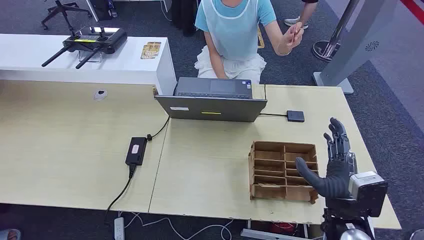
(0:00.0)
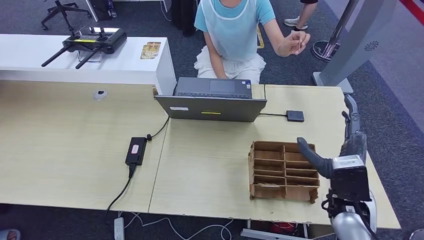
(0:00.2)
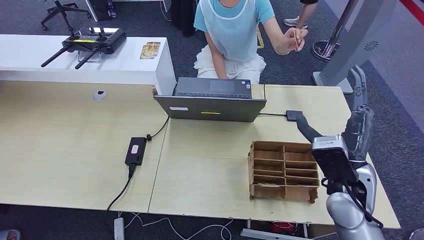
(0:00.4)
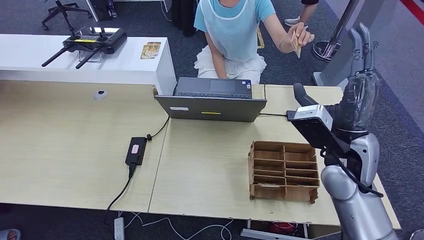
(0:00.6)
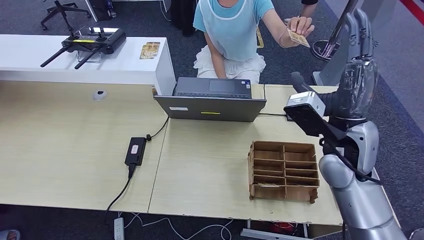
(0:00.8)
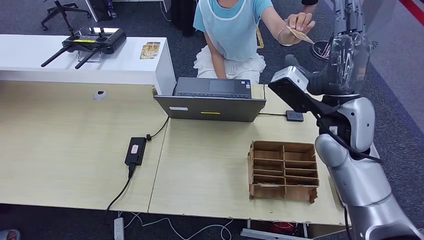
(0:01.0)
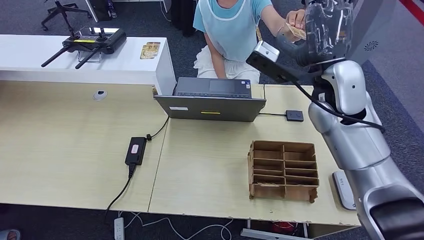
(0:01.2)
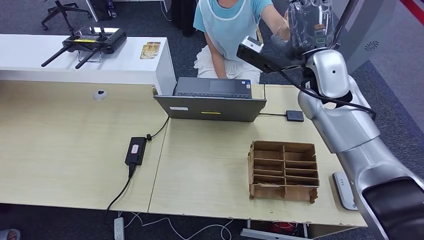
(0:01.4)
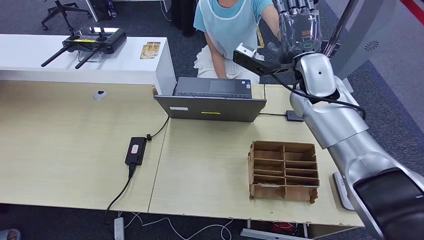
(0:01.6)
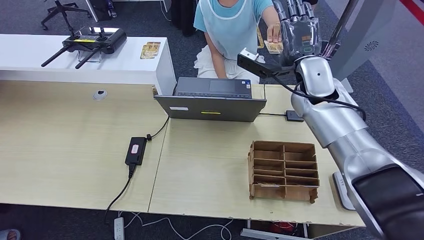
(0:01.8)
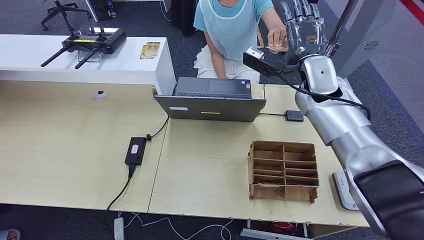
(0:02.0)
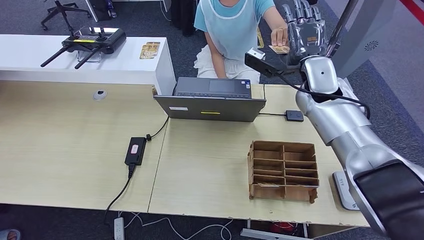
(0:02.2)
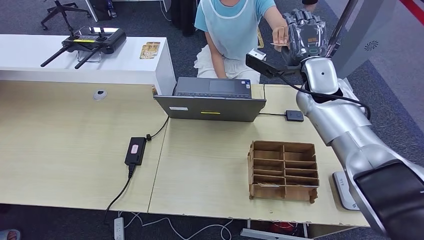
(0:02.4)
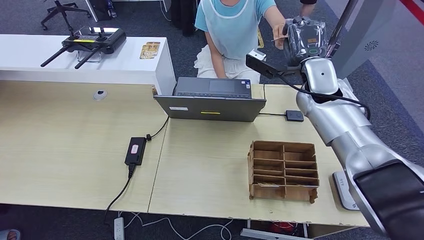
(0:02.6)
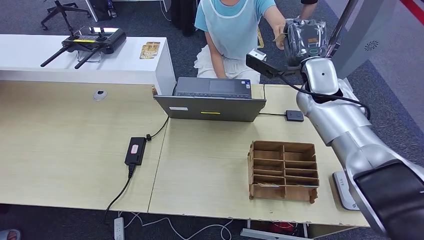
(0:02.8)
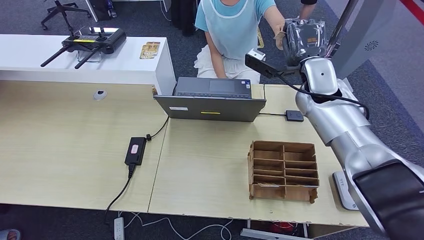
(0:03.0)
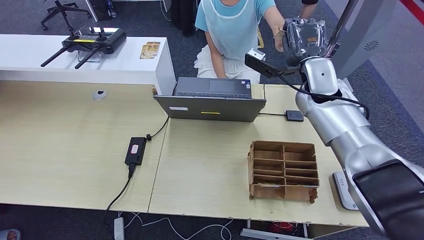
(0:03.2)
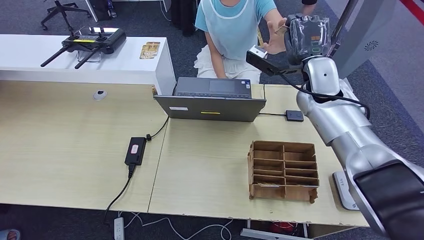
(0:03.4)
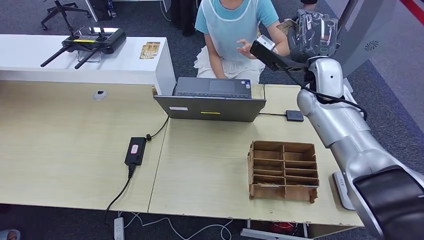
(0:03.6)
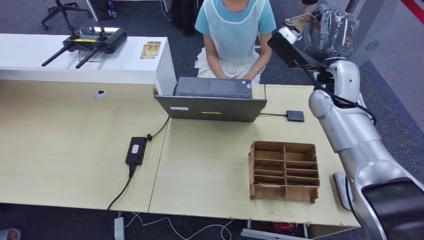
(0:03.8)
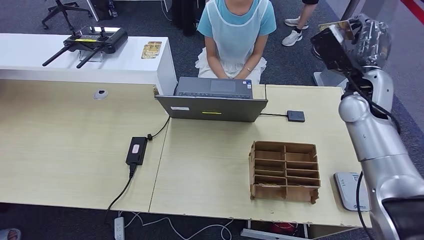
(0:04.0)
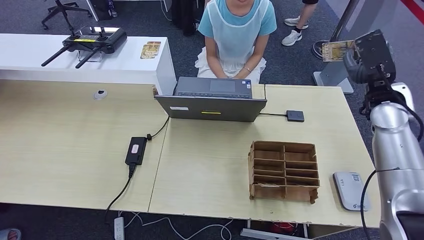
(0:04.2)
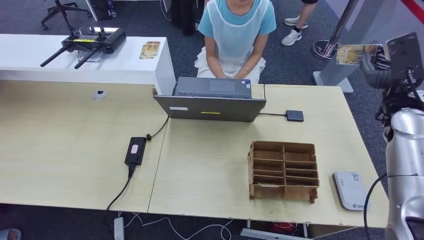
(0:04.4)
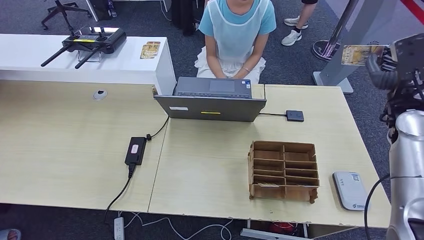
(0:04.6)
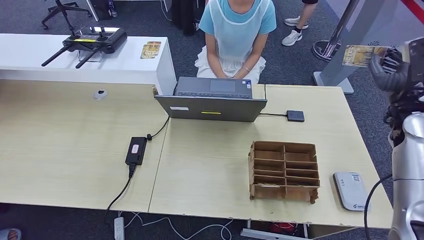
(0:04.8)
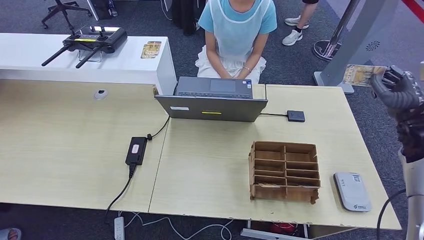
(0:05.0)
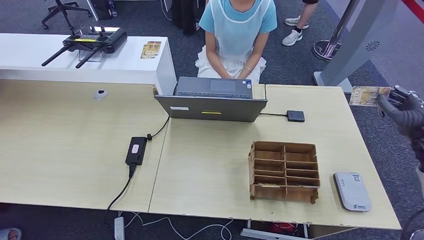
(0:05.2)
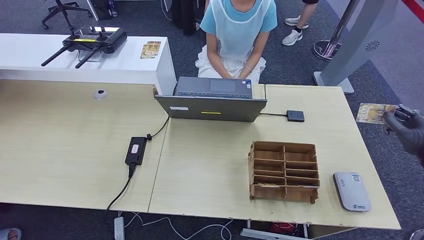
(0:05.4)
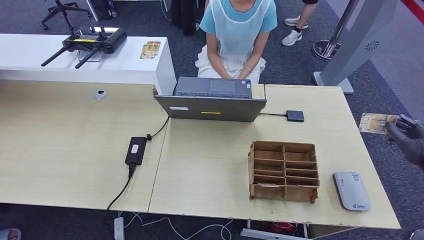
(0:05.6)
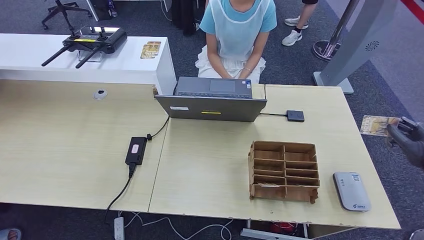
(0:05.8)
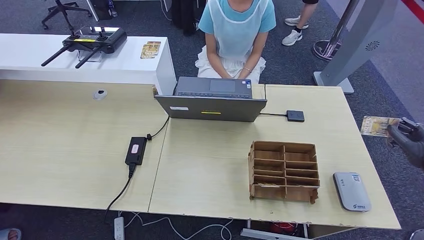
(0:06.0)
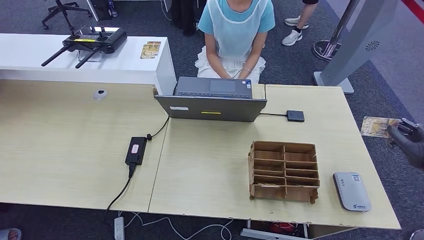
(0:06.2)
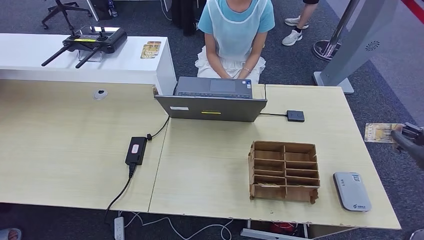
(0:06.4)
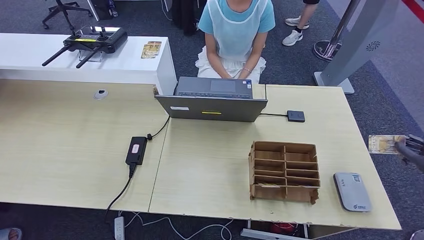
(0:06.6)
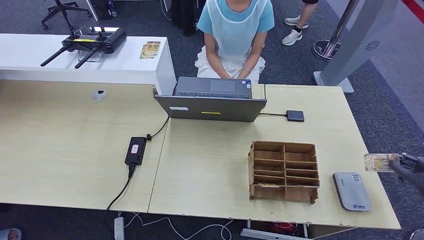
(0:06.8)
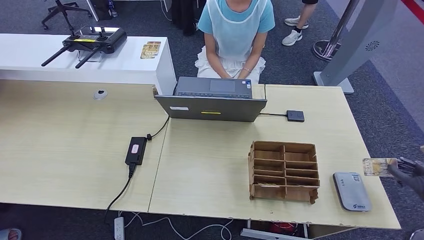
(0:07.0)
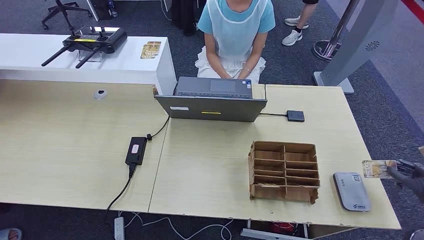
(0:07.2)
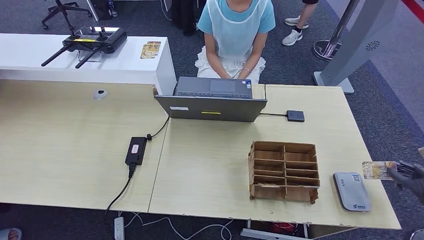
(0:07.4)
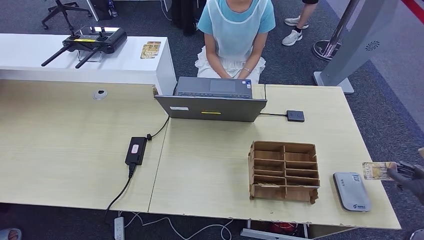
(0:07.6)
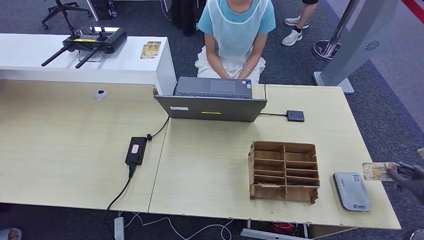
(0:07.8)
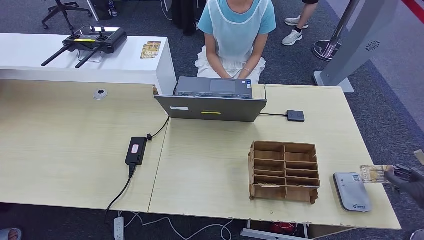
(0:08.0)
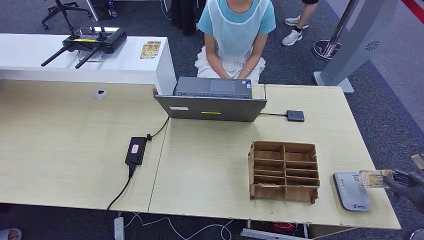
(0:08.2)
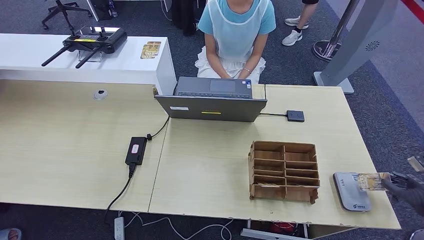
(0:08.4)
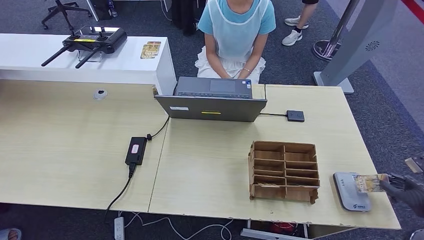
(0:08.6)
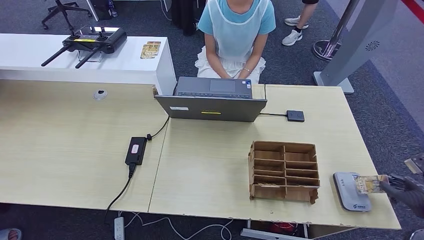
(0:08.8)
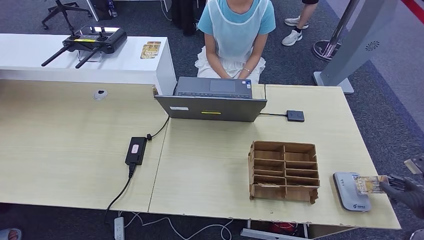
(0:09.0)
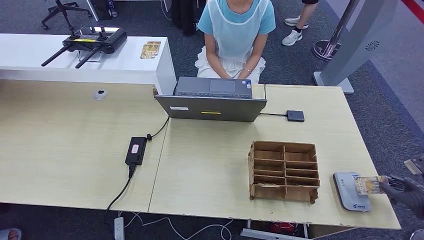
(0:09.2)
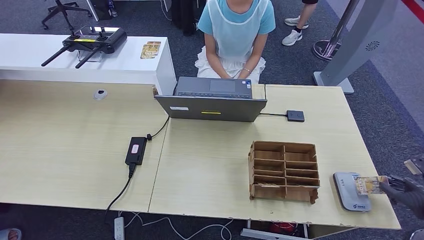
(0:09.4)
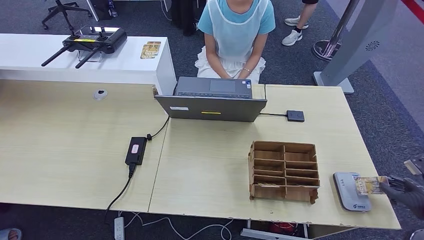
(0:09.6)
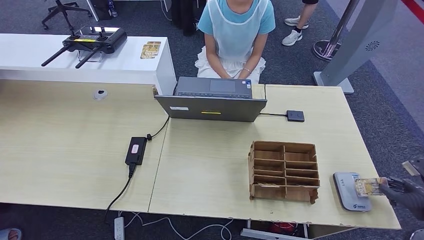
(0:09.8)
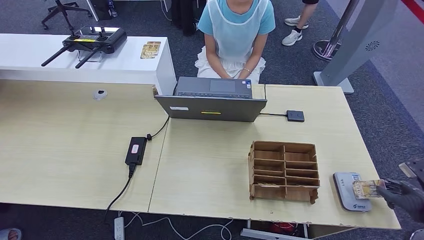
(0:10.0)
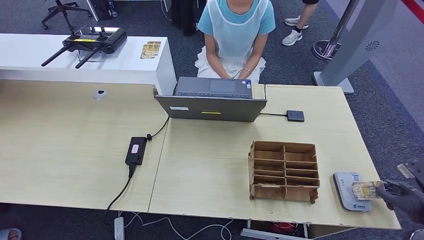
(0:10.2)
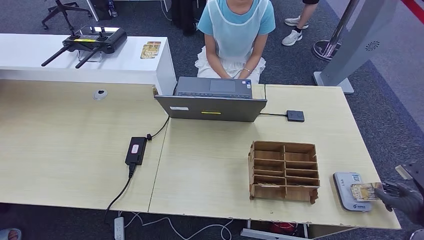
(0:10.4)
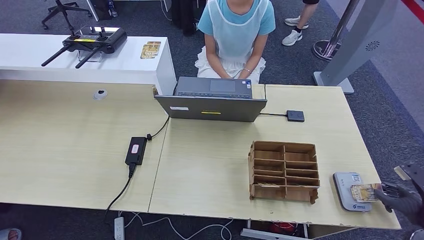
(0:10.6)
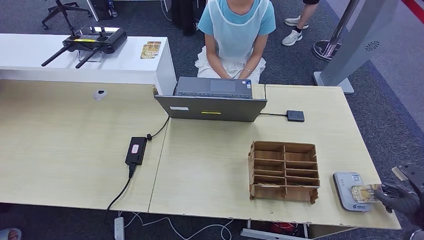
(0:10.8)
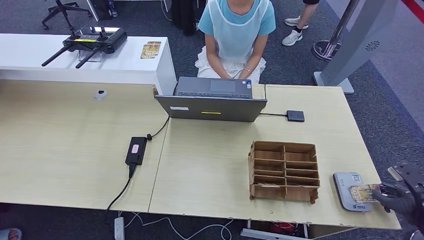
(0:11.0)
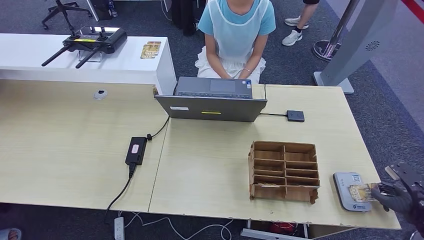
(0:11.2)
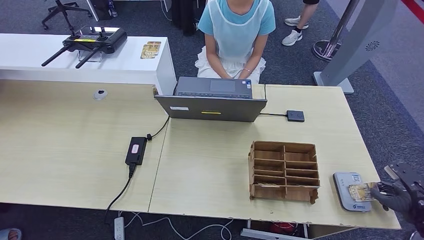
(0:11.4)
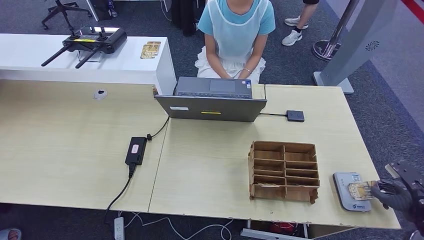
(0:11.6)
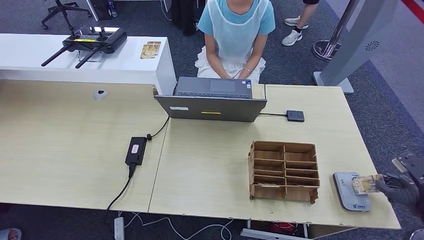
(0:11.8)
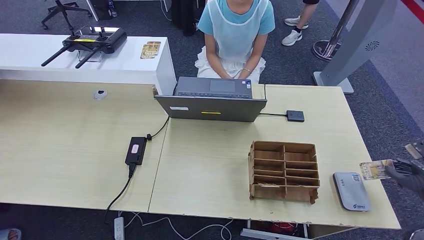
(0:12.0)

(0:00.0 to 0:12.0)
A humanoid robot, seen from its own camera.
Step, 0:00.0 - 0:03.4: Take the ID card from the person's hand.
Step, 0:03.6 - 0:11.0: Place the ID card on the card reader.
0:01.6 - 0:03.0: There are only small adjustments of the hands.
0:03.0 - 0:04.4: The right hand is displaced to the right and backward by approximately 20 cm.
0:04.4 - 0:06.0: The right hand goes about 20 cm to the right, backward and downward.
0:06.0 - 0:07.6: The right hand heads backward, covering roughly 5 cm.
0:07.6 - 0:10.4: There are only small adjustments of the hands.
0:10.4 - 0:12.0: The right hand moves upward, some 5 cm.

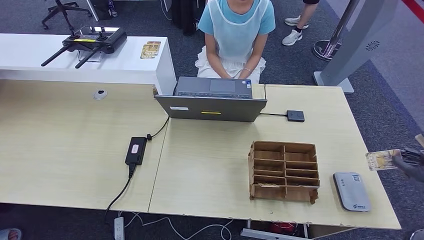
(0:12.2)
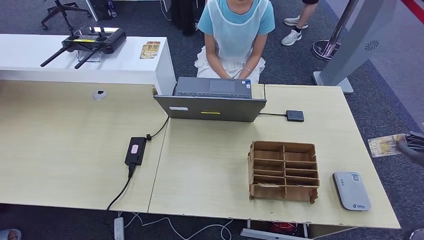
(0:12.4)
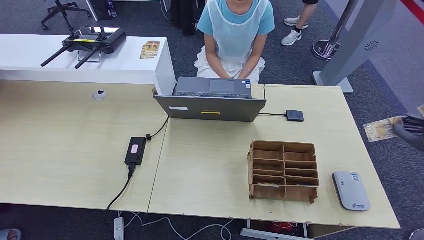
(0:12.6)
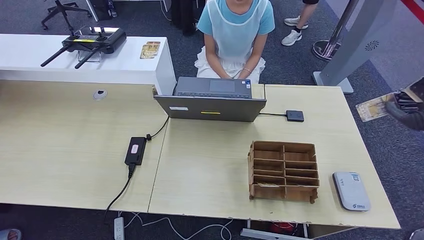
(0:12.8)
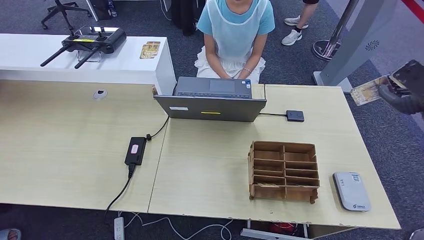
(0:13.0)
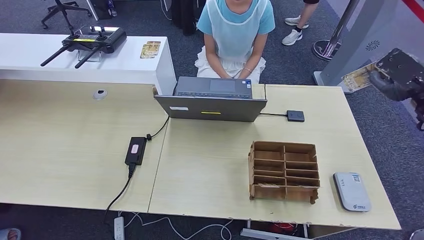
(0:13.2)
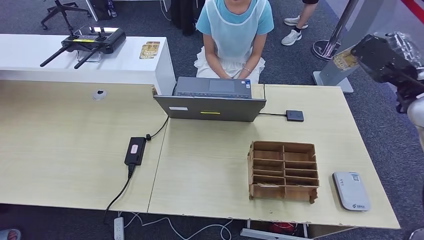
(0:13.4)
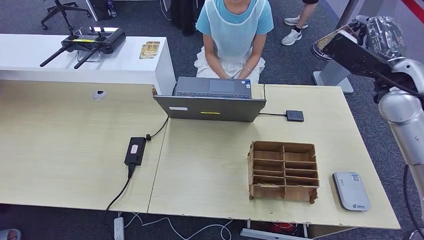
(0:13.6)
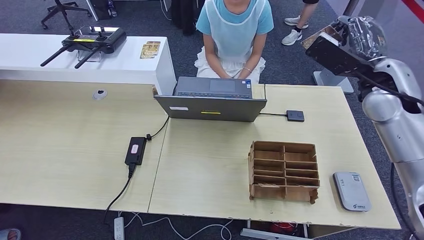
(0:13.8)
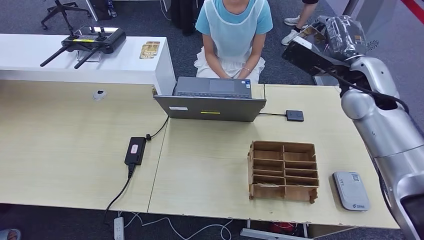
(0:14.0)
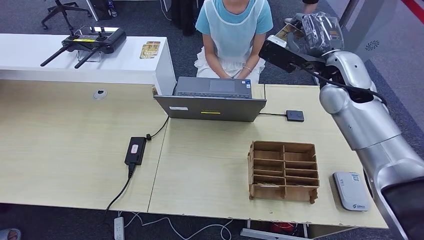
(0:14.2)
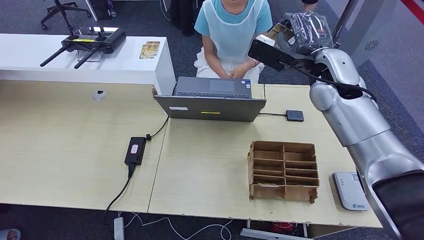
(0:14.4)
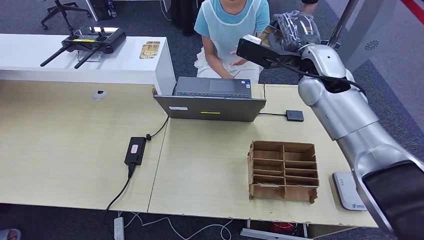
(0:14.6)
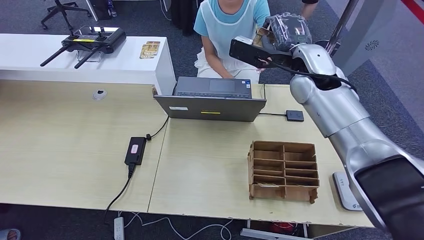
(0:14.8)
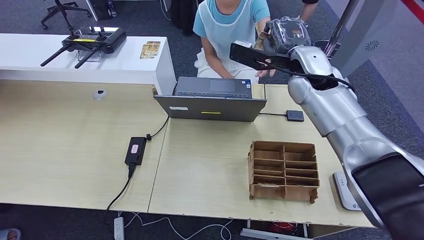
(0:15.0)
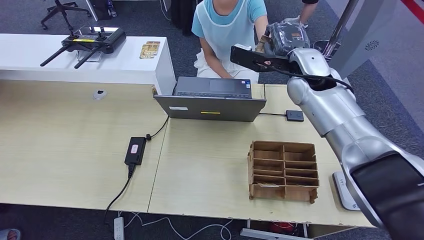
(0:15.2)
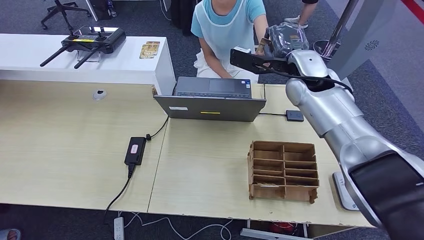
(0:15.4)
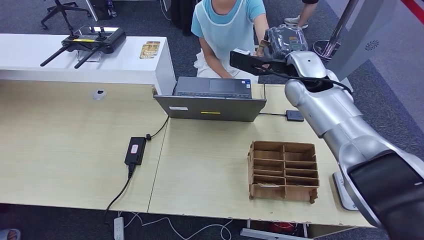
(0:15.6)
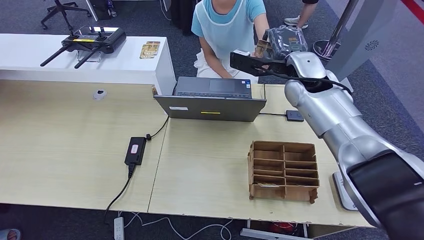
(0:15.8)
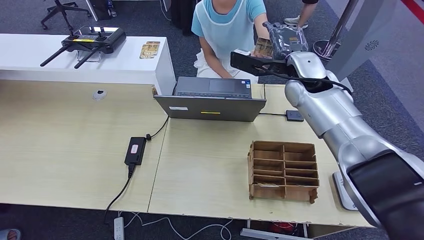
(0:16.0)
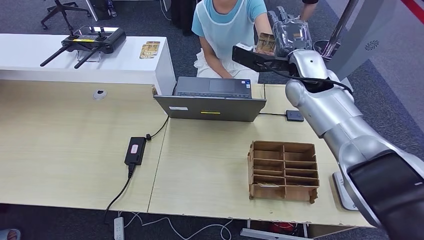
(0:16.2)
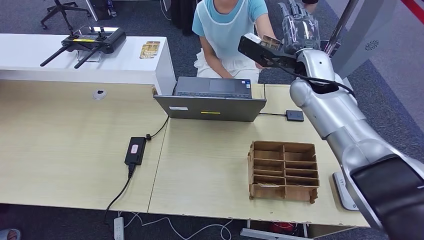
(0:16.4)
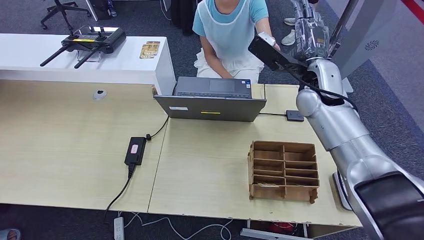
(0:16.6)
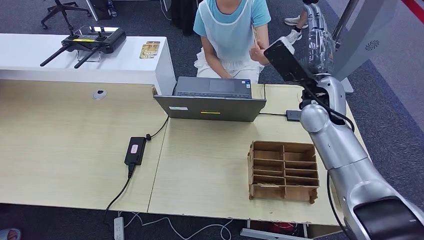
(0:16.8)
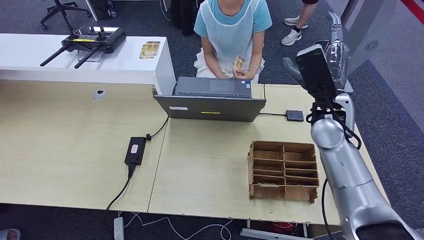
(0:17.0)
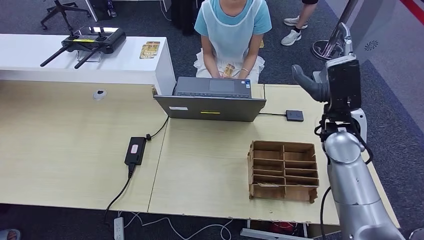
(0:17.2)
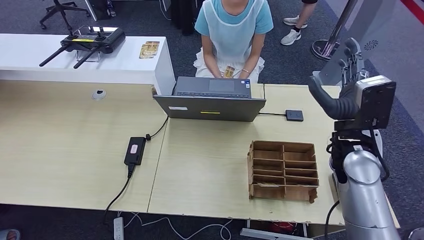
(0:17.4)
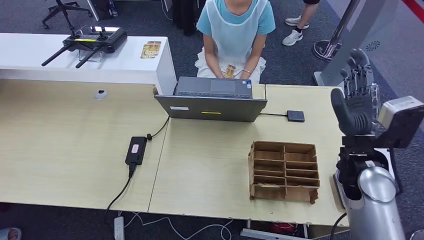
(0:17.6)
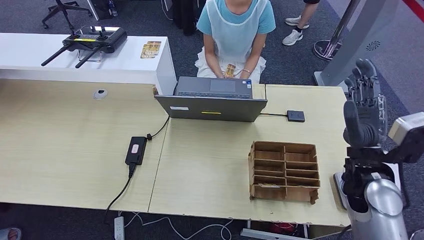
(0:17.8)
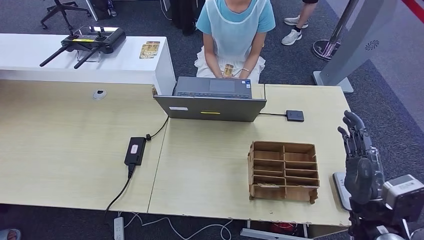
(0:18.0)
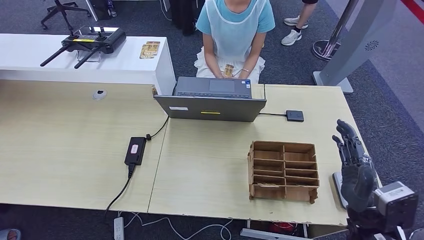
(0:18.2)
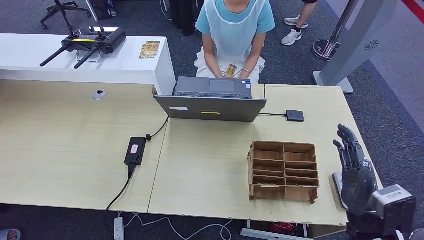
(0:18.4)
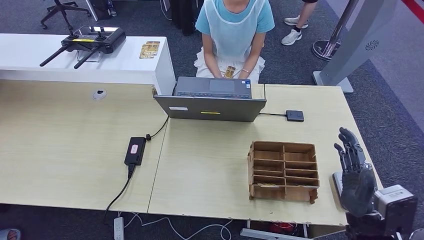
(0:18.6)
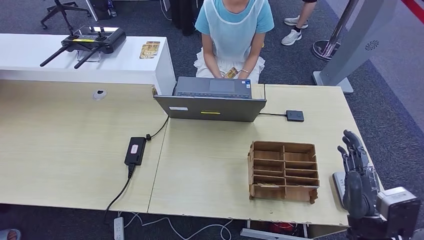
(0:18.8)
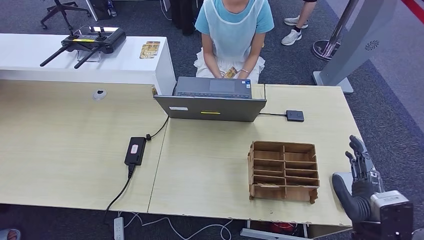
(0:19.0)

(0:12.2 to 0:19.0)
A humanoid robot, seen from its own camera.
Step, 0:12.2 - 0:16.0: Hand the ID card to the person.
0:12.2 - 0:13.6: The right hand travels to the left, upward and forward by approximately 30 cm.
0:15.0 - 0:16.2: There are only small adjustments of the hands.
0:17.6 - 0:19.0: The right hand moves backward and downward, some 20 cm.
